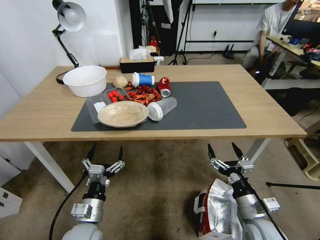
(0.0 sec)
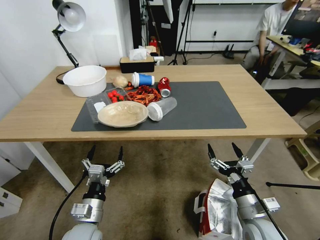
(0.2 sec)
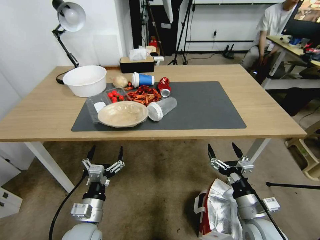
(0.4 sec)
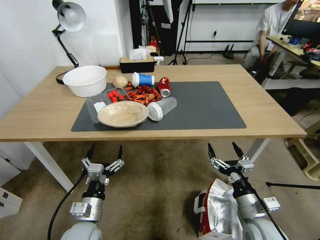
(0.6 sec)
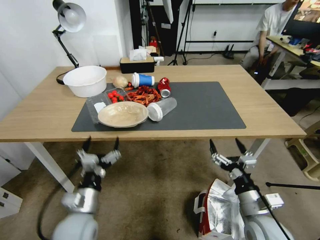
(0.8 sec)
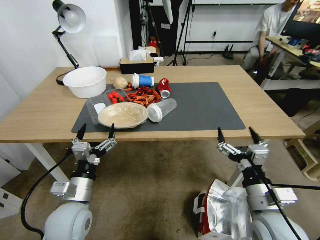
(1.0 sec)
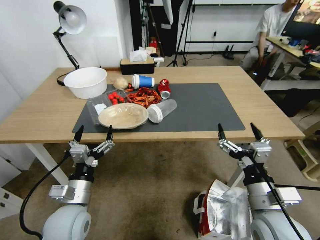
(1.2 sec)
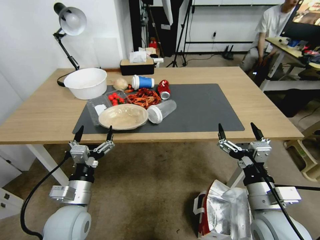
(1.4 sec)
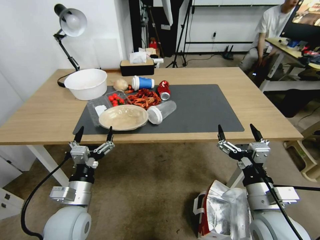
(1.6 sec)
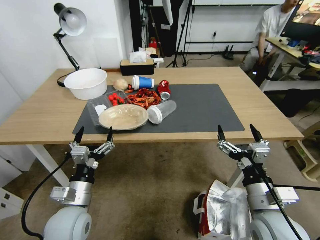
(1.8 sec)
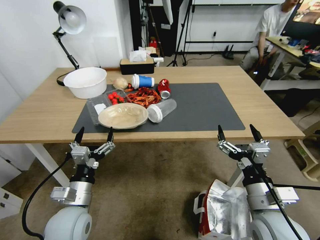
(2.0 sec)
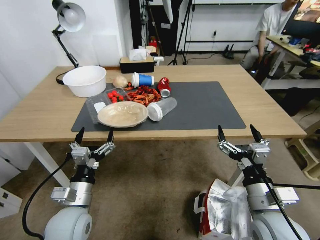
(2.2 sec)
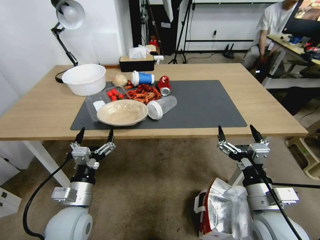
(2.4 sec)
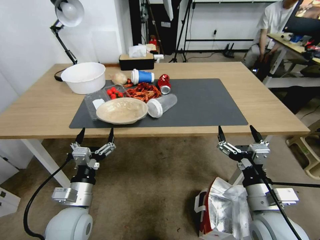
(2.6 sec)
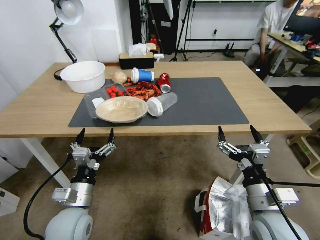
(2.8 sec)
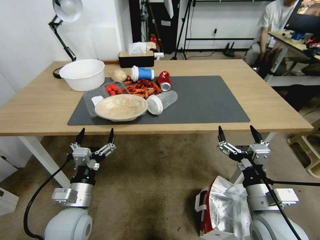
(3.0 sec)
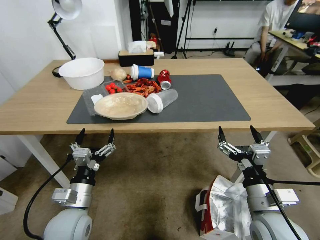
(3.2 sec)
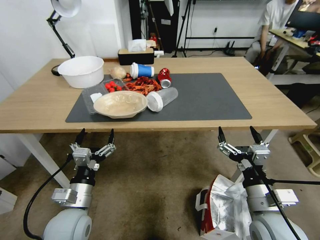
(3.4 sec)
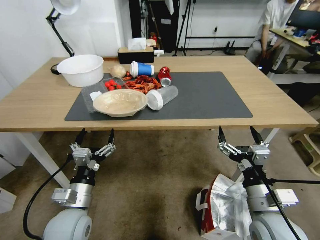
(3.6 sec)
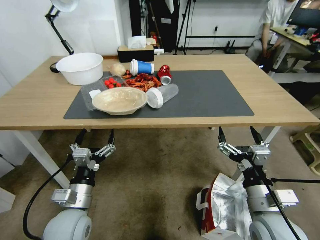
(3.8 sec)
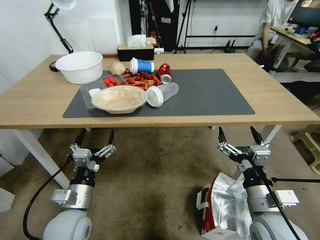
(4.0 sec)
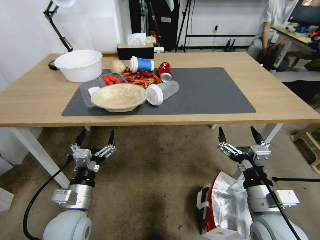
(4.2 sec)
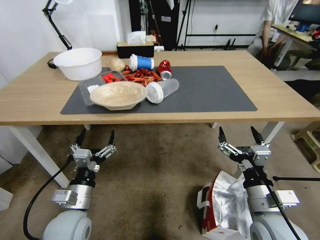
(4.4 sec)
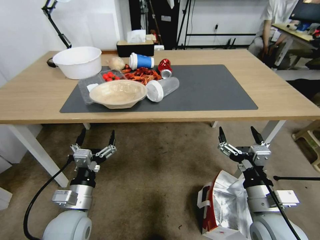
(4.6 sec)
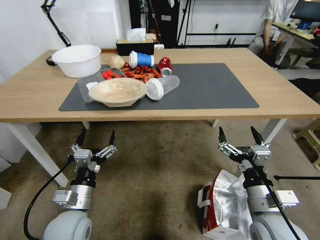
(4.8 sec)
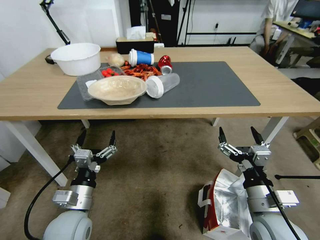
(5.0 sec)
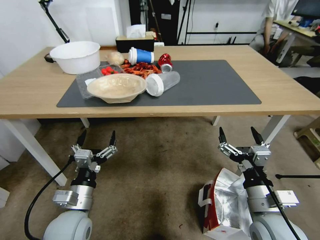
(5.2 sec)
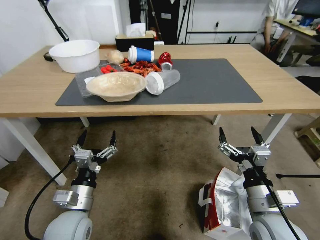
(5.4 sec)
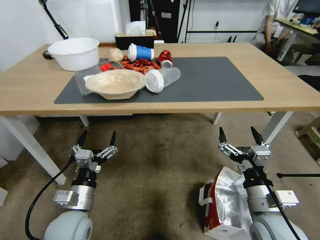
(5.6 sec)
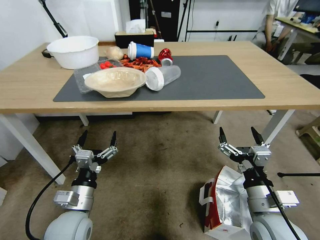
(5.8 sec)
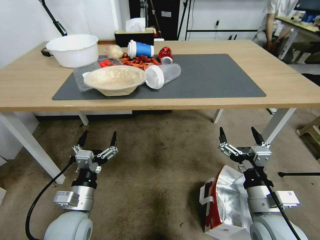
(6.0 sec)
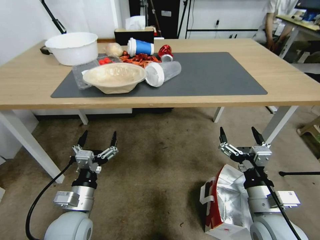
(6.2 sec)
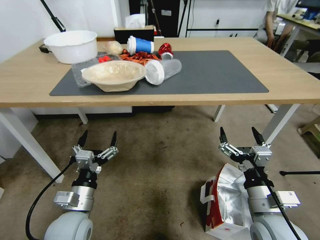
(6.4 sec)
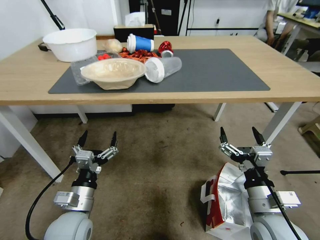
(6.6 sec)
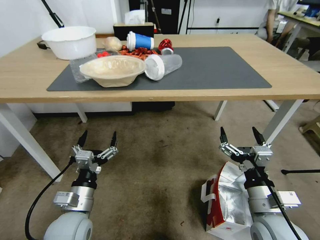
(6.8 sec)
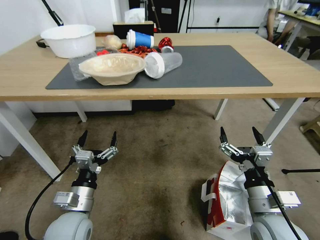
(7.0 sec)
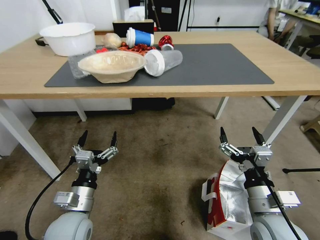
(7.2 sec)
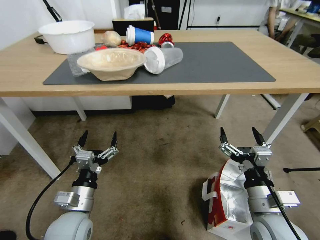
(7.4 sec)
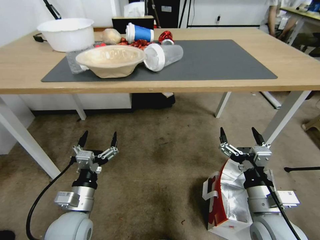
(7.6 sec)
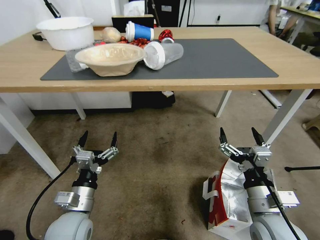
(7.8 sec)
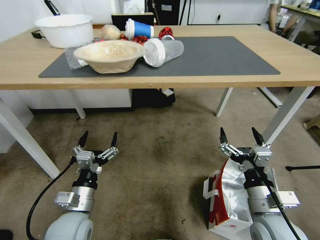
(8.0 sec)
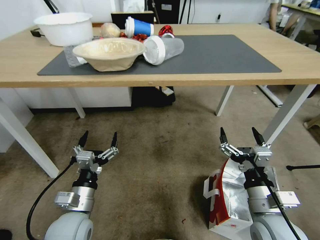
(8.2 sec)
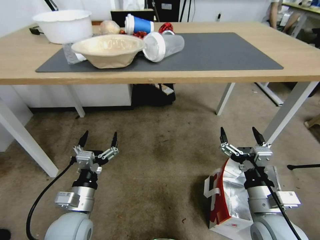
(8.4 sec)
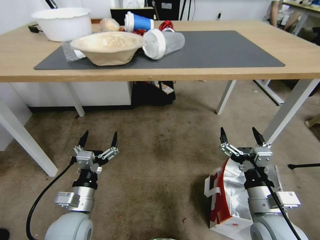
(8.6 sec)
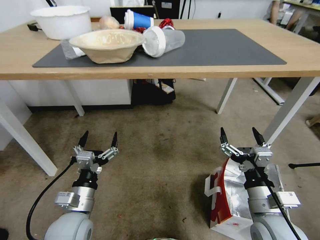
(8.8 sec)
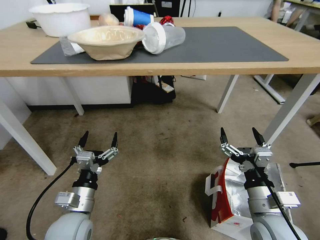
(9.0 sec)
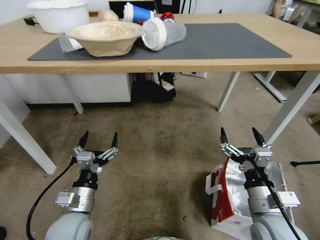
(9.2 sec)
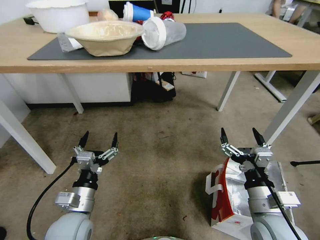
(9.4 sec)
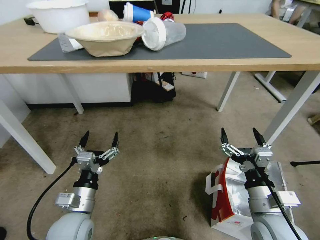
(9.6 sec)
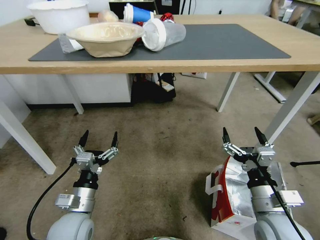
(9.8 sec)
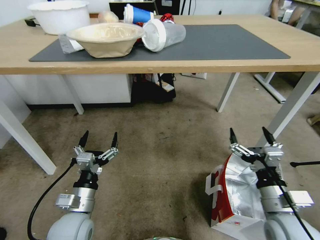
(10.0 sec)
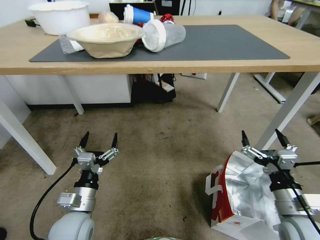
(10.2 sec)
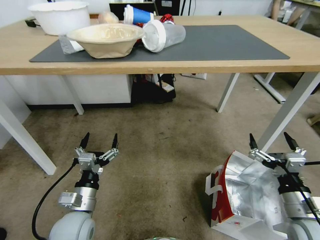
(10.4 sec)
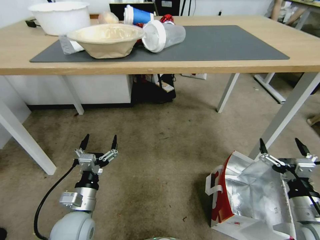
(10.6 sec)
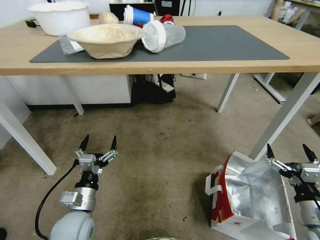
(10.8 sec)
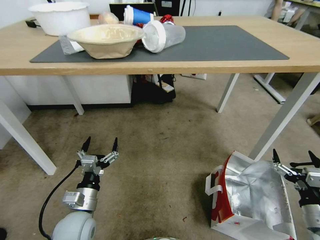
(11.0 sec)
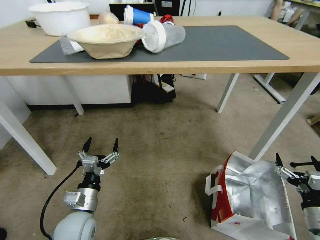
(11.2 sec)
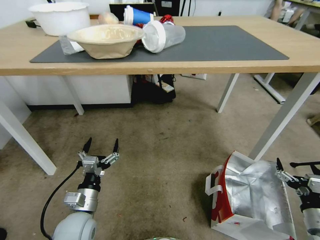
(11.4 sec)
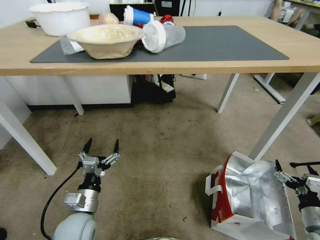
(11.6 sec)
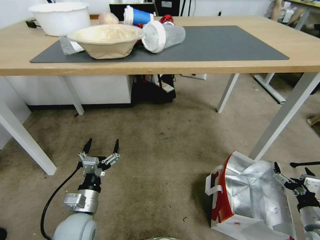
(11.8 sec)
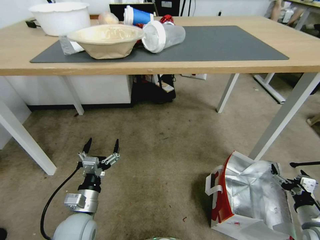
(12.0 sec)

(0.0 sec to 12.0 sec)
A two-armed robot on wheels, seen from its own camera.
Task of the whole recording: Pick up the food delivery bag from the floor and place it on the table.
9.0 sec - 10.4 sec: The right gripper goes about 10 cm to the right.
10.4 sec - 12.0 sec: The right gripper travels to the right and downward by roughly 15 cm.

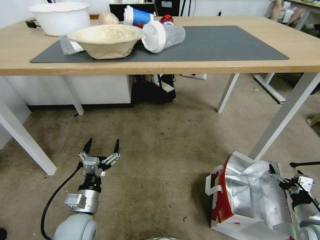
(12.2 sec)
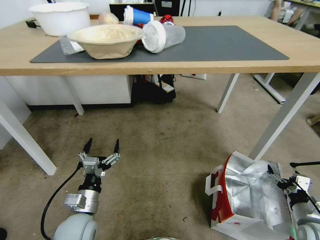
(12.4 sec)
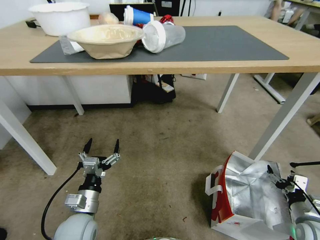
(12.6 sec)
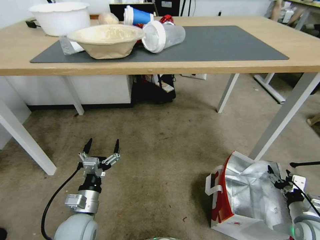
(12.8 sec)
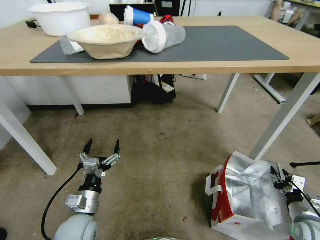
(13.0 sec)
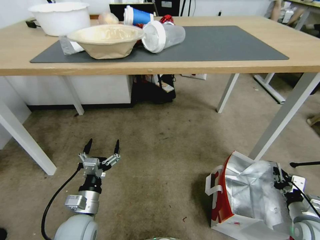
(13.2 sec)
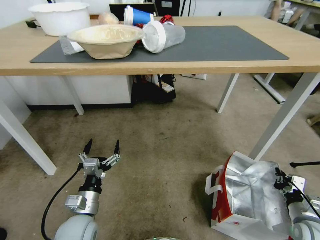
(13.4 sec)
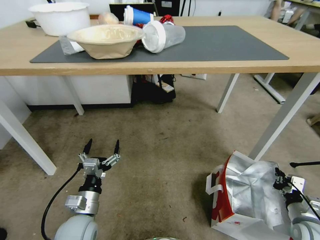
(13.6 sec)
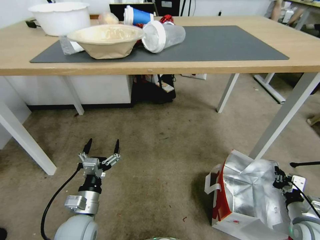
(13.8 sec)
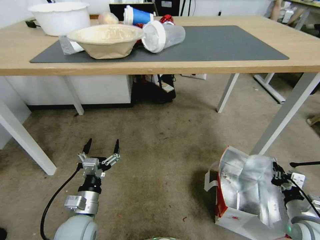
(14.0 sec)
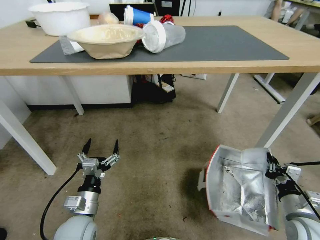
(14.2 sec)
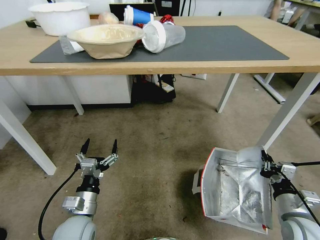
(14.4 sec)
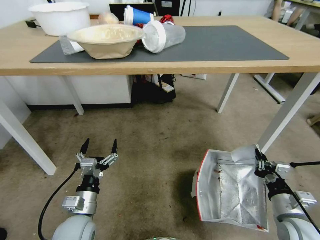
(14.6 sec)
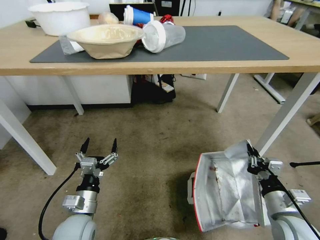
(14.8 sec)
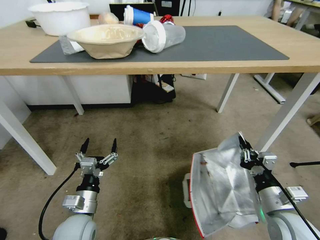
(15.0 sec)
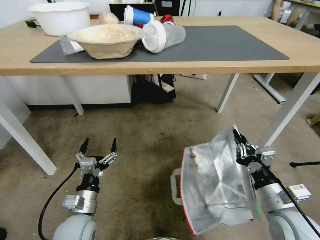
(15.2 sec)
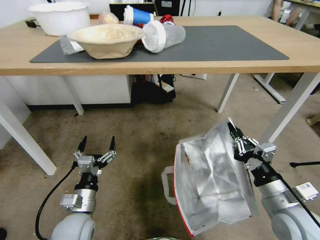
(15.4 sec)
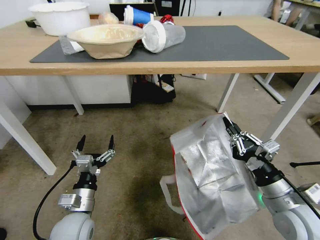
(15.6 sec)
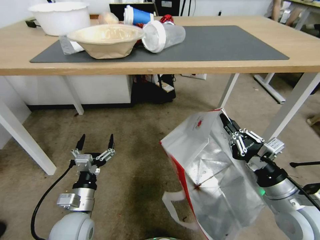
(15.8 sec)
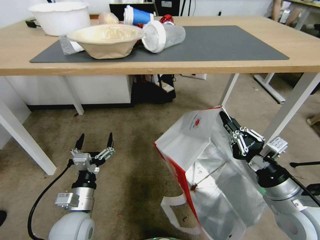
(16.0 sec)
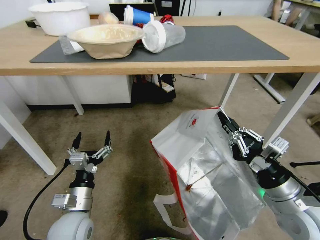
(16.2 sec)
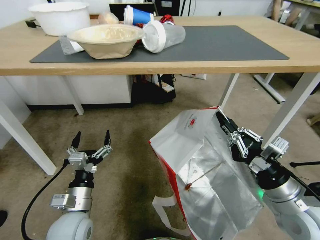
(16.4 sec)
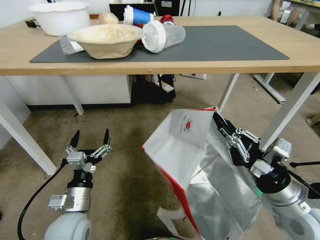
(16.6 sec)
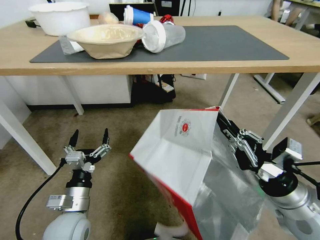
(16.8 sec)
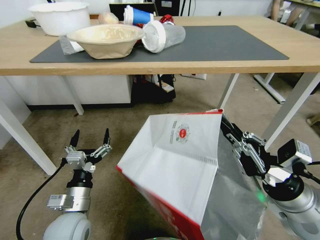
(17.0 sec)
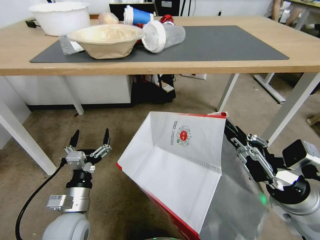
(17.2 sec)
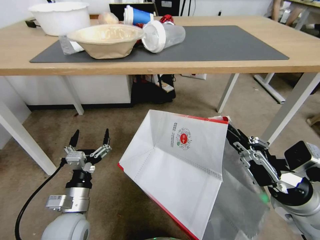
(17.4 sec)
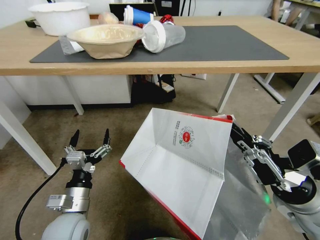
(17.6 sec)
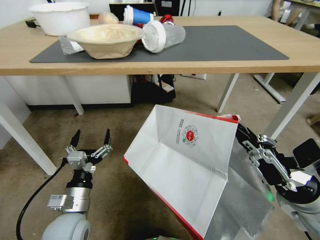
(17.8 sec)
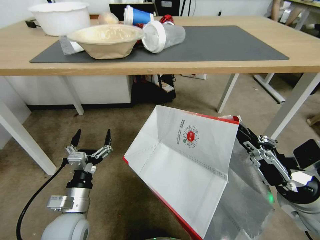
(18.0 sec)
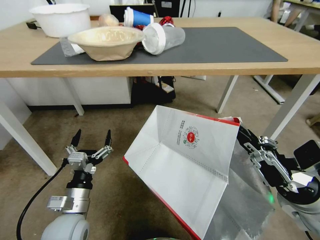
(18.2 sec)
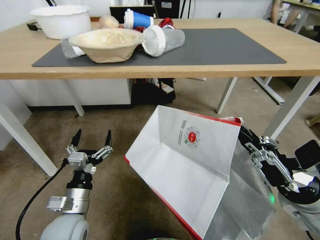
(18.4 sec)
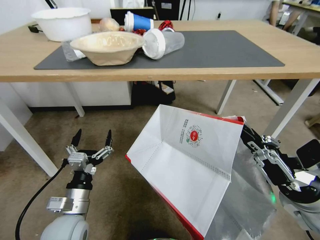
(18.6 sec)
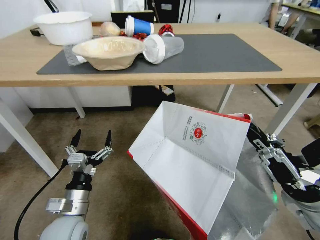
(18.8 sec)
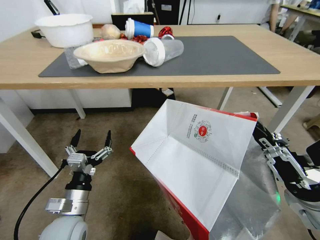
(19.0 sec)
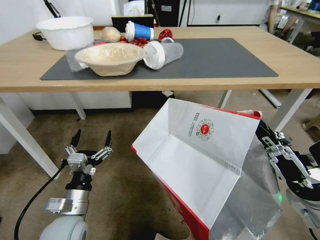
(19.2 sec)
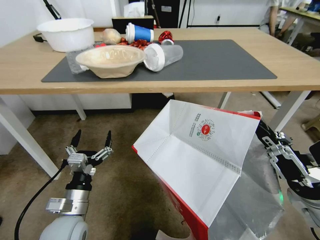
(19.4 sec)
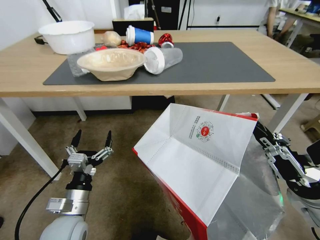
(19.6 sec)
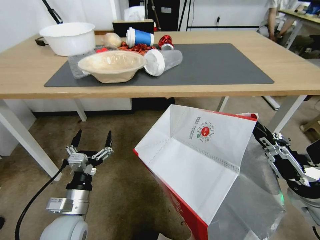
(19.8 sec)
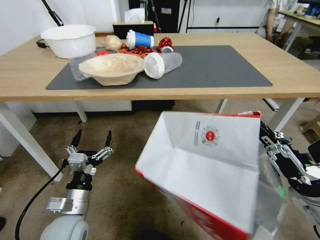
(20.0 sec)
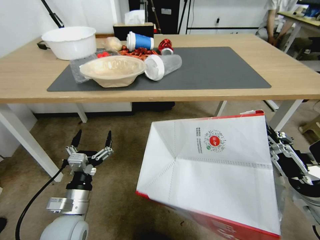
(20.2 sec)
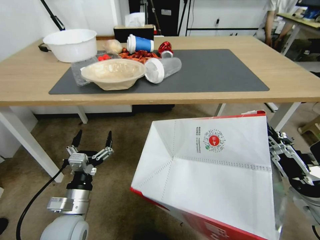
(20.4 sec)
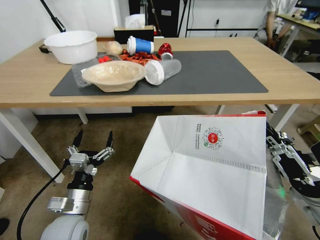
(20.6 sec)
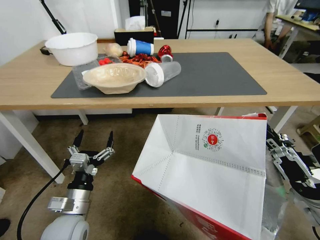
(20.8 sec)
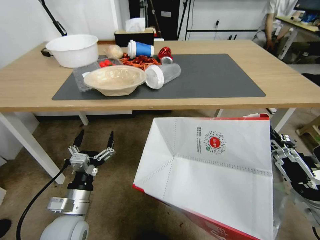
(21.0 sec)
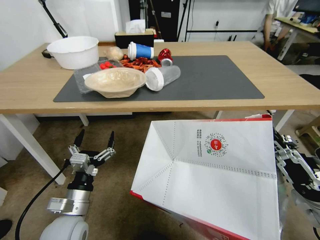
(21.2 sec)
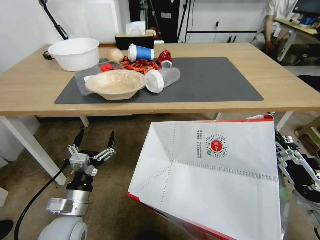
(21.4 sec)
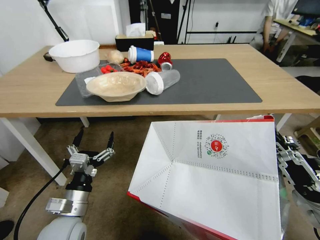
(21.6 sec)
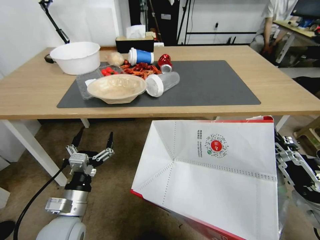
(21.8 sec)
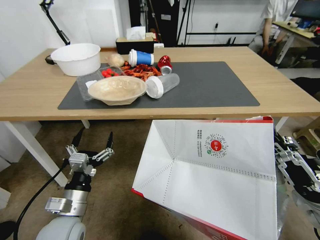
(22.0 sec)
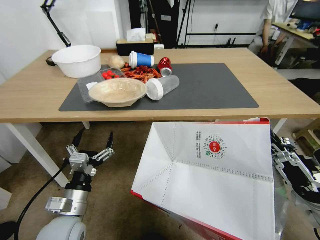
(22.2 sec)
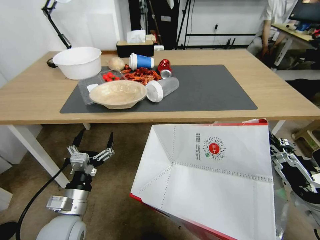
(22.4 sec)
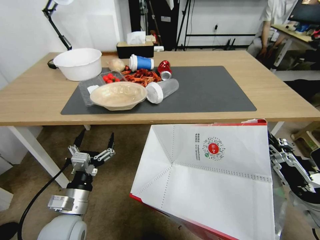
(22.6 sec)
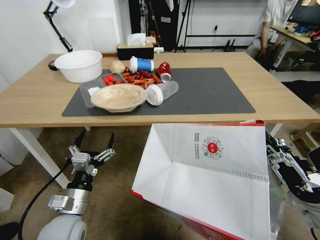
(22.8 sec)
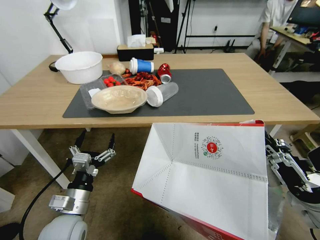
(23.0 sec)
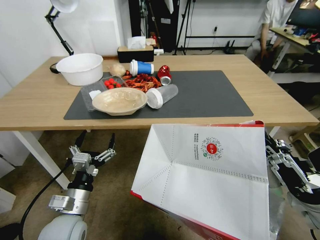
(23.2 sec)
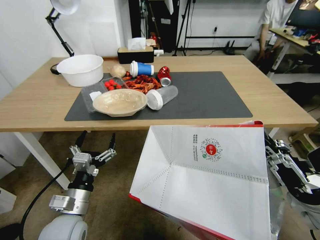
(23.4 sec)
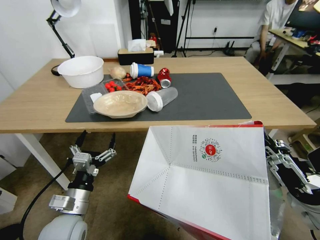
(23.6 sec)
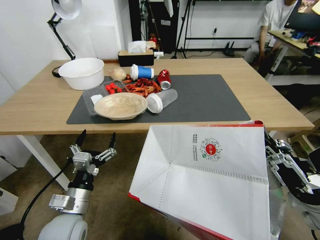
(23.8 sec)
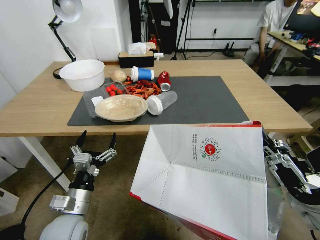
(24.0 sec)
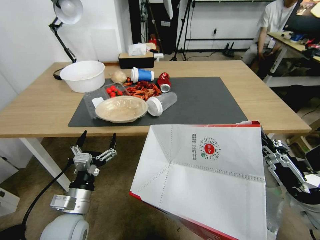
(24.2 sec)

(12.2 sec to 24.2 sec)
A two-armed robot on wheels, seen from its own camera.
Task of the whole recording: Pick up the food delivery bag from the floor and place it on the table.
12.2 sec - 13.8 sec: The right gripper closes its fingers.
13.8 sec - 15.2 sec: The right gripper goes some 20 cm to the left and upward.
15.2 sec - 16.6 sec: The right gripper travels upward by some 5 cm.
